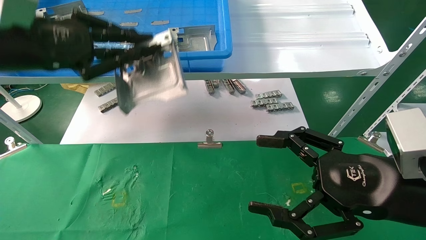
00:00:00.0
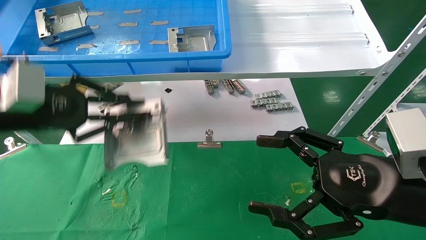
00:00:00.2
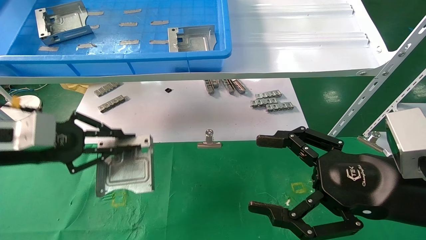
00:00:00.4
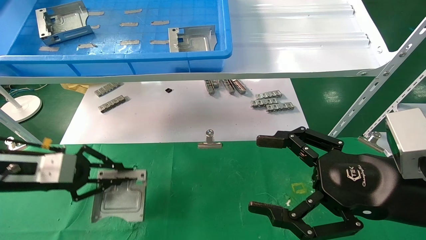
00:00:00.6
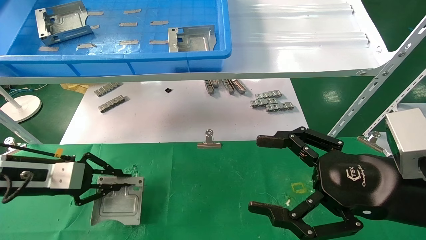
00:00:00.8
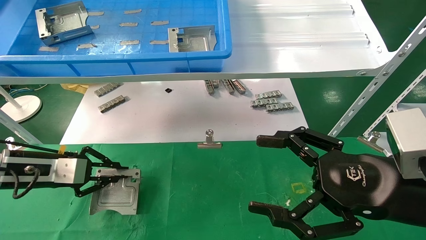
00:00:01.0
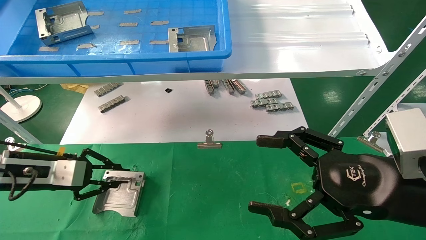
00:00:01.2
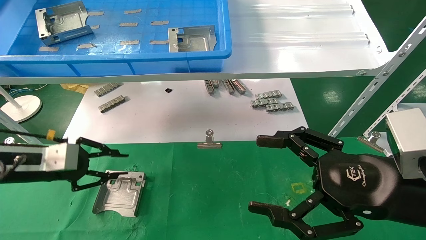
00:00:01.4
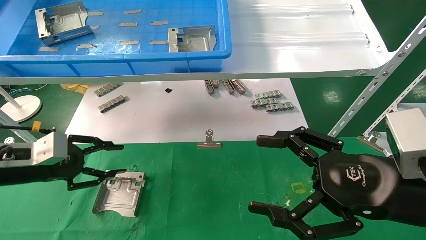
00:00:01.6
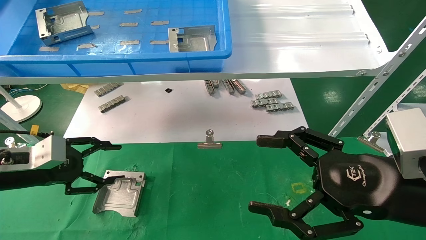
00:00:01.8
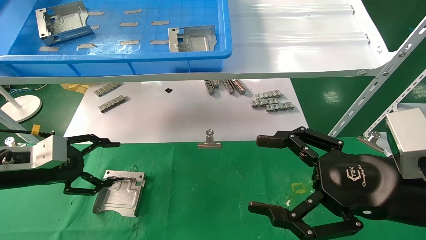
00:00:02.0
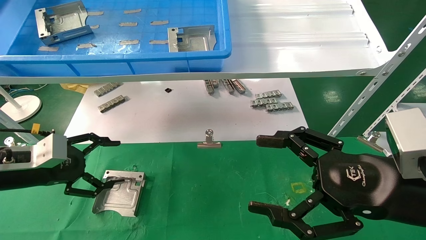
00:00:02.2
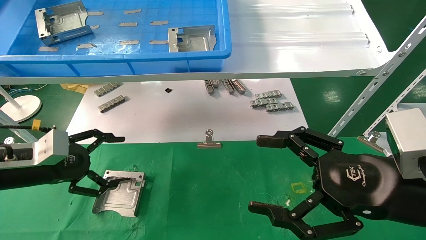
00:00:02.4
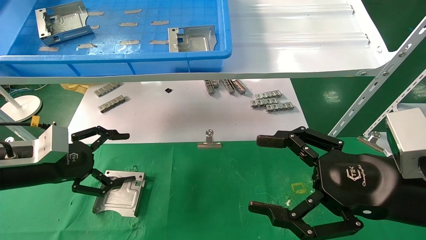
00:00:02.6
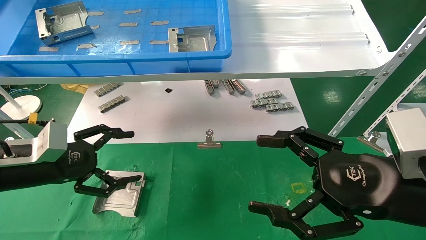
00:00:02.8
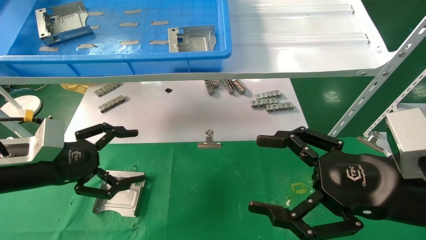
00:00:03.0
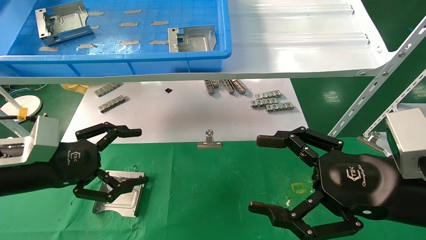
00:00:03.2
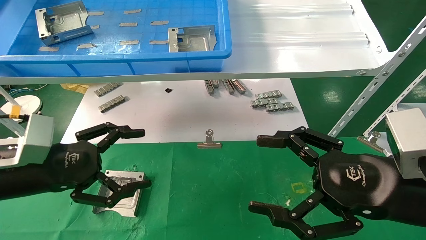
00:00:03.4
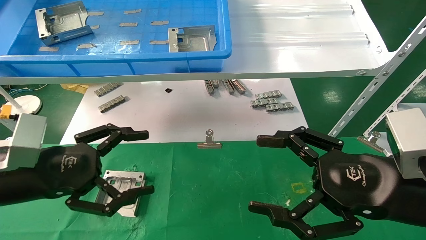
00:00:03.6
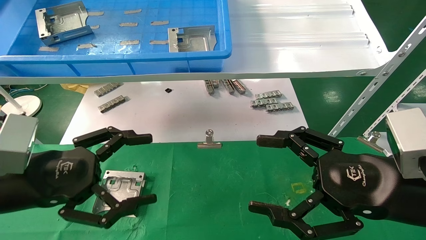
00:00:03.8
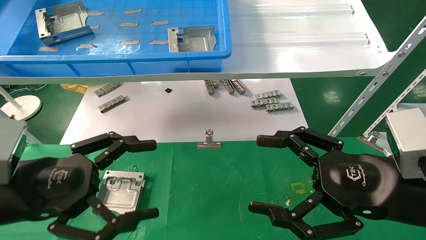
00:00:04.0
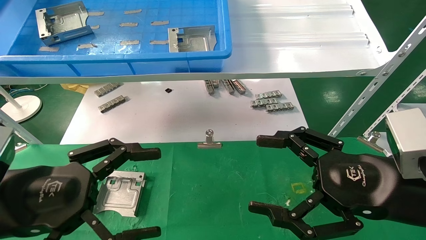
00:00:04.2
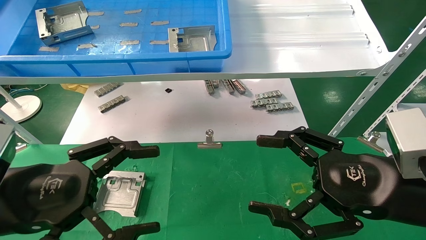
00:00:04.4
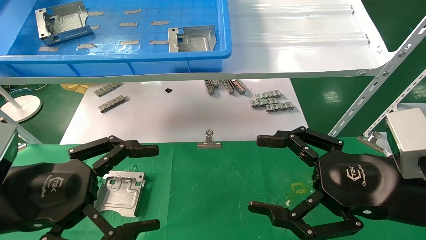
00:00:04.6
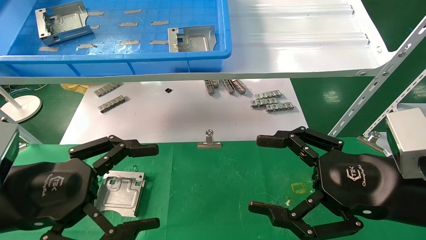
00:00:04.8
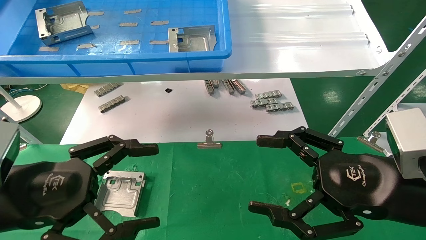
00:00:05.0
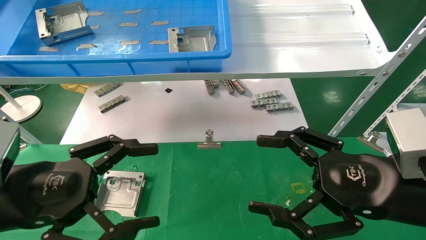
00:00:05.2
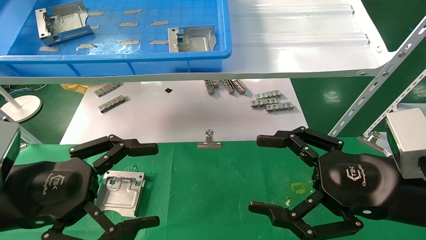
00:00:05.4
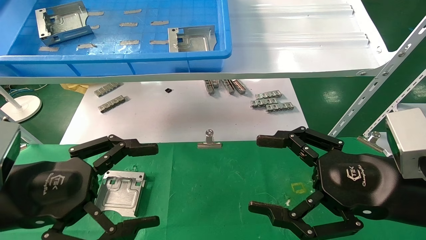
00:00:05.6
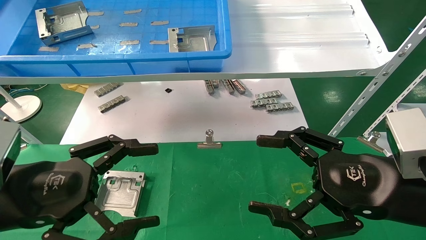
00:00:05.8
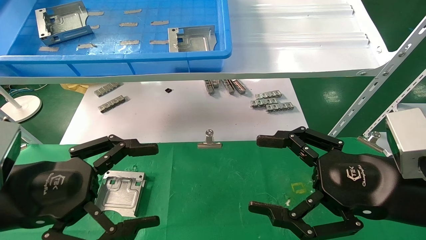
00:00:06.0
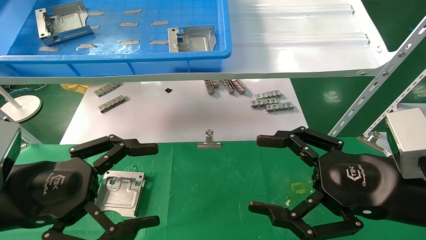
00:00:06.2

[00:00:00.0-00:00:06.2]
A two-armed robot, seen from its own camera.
Task of the whole recording: use the mechanical arm to pick up the parts and place them on the table.
Step, 00:00:00.0 to 00:00:02.0: Place the hard drive bracket into the box.
00:00:00.0 to 00:00:01.6: The left gripper heads downward, covering roughly 20 cm.
00:00:01.6 to 00:00:03.2: The left gripper is displaced to the right and backward by some 10 cm, and opens.
00:00:03.2 to 00:00:04.6: The left gripper heads backward, covering roughly 10 cm.
00:00:04.6 to 00:00:06.2: Neither gripper changes place.

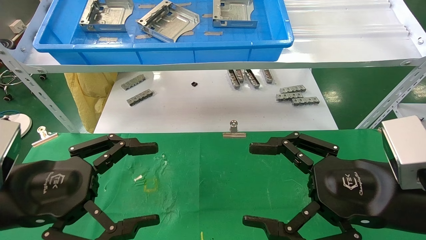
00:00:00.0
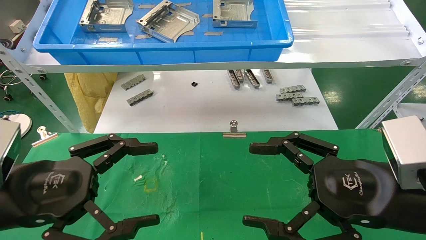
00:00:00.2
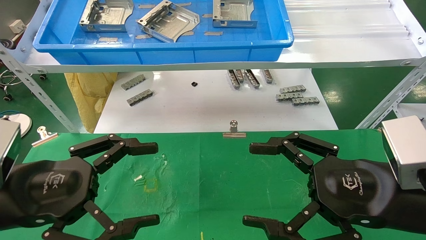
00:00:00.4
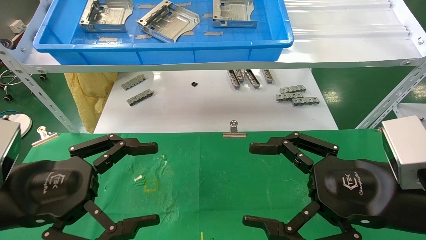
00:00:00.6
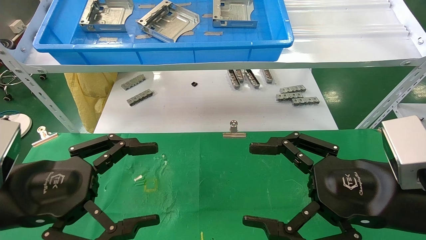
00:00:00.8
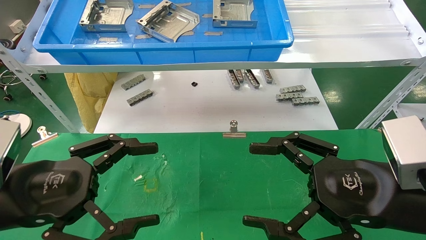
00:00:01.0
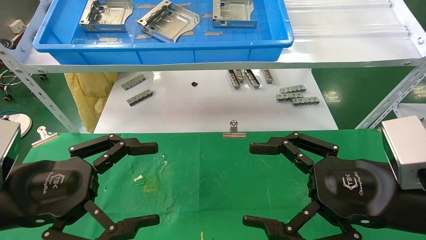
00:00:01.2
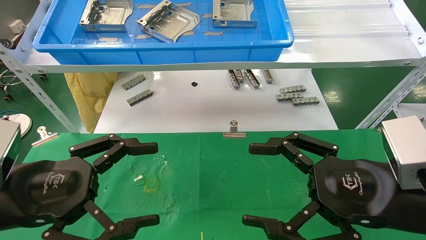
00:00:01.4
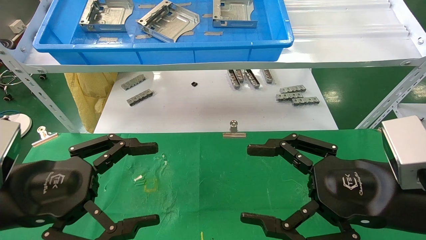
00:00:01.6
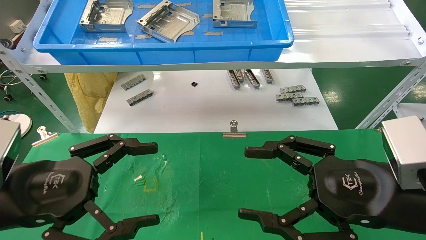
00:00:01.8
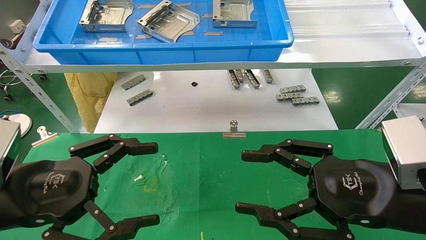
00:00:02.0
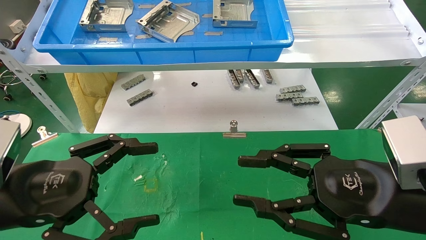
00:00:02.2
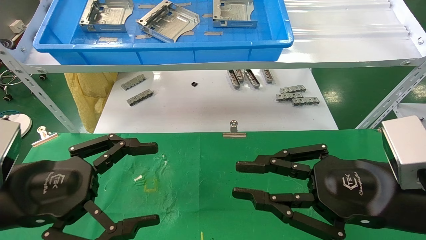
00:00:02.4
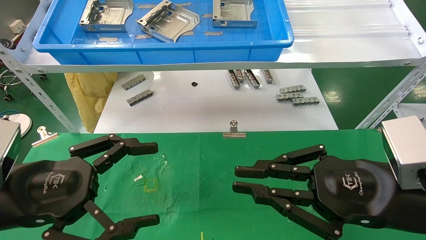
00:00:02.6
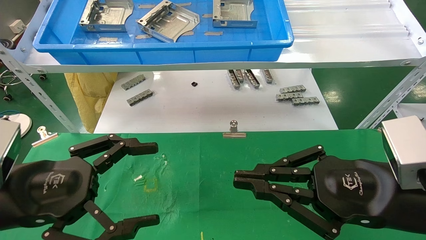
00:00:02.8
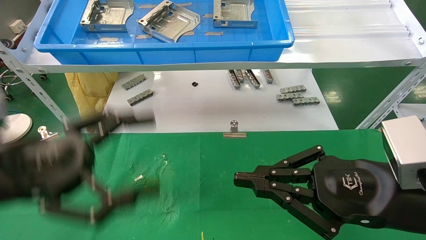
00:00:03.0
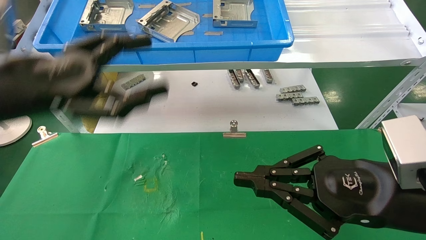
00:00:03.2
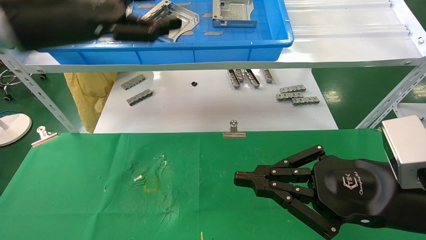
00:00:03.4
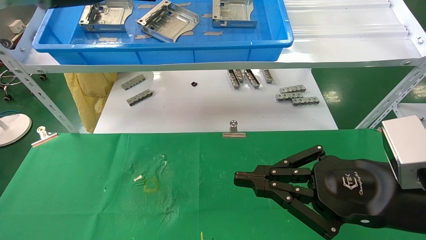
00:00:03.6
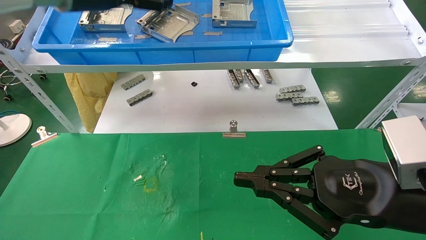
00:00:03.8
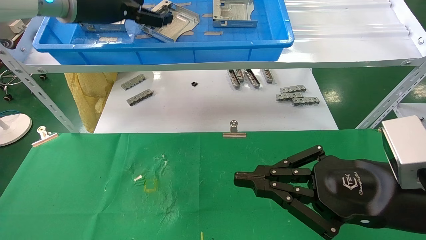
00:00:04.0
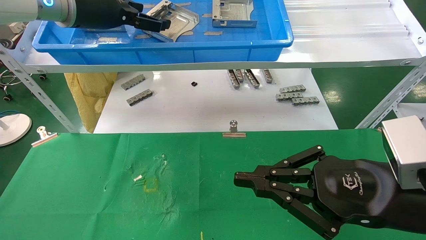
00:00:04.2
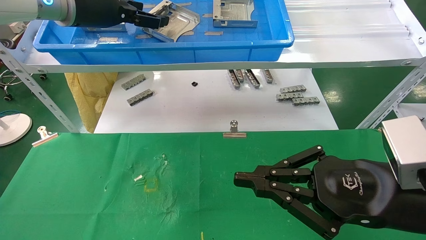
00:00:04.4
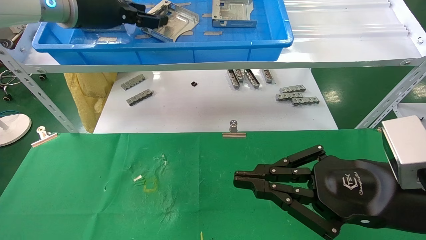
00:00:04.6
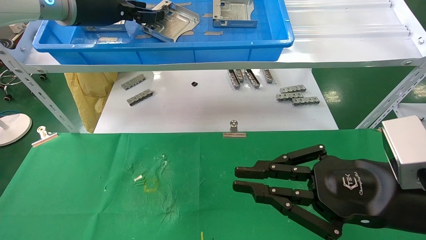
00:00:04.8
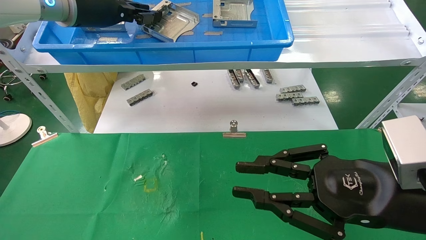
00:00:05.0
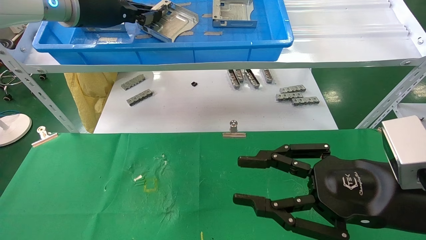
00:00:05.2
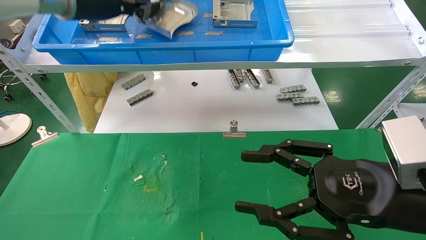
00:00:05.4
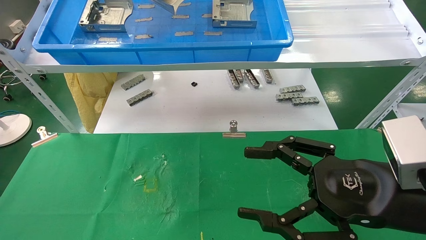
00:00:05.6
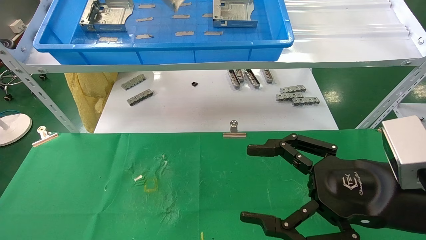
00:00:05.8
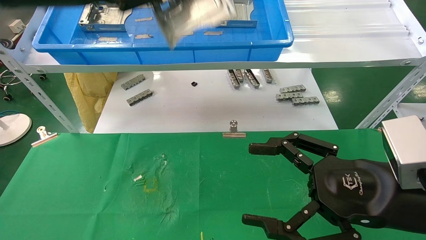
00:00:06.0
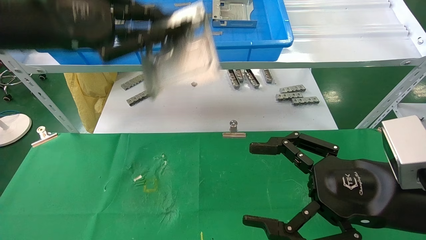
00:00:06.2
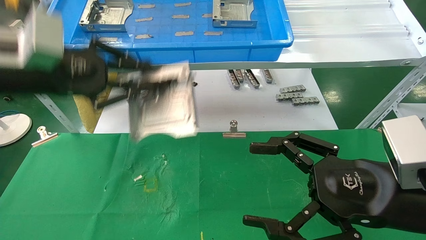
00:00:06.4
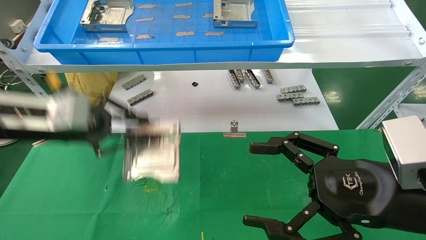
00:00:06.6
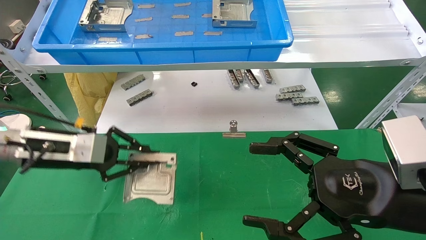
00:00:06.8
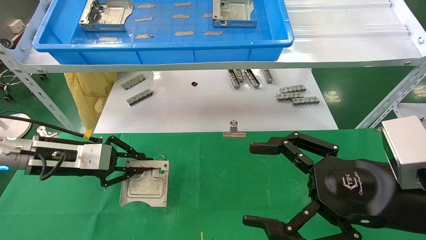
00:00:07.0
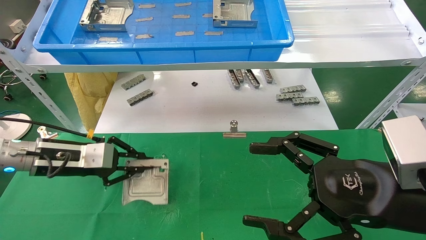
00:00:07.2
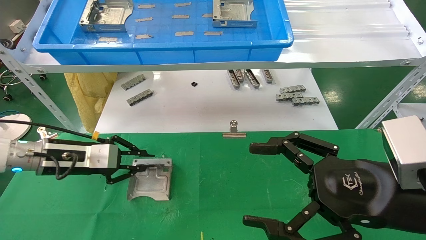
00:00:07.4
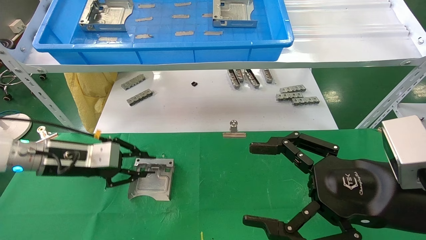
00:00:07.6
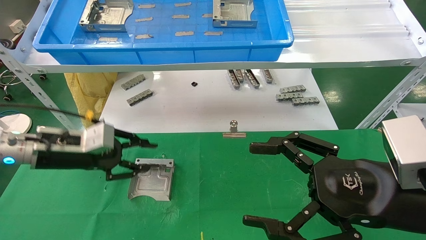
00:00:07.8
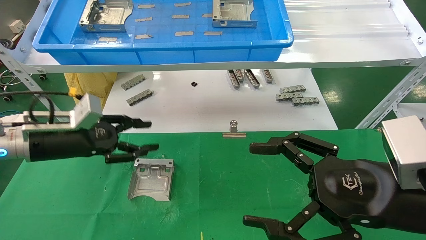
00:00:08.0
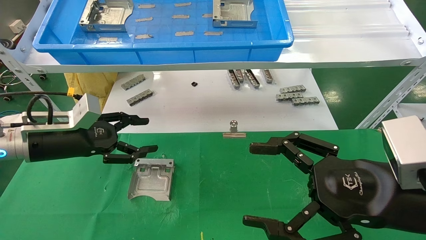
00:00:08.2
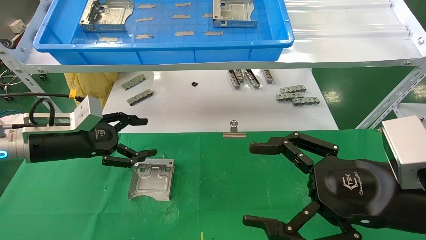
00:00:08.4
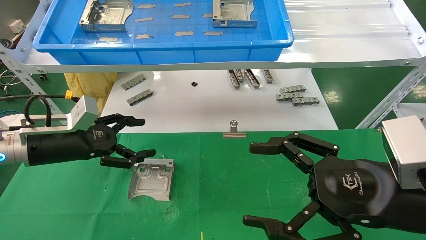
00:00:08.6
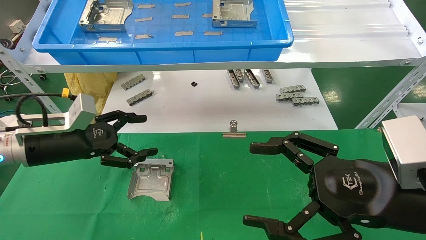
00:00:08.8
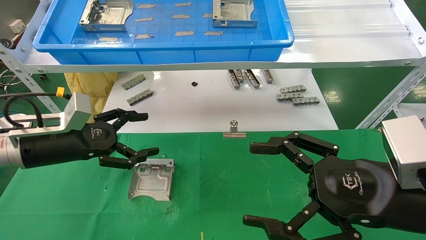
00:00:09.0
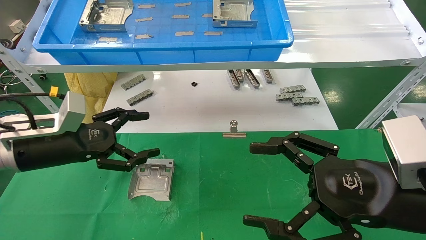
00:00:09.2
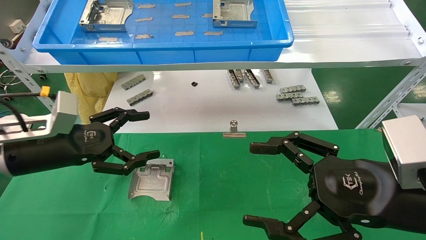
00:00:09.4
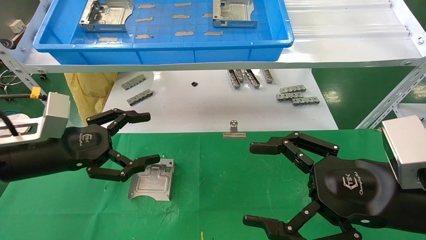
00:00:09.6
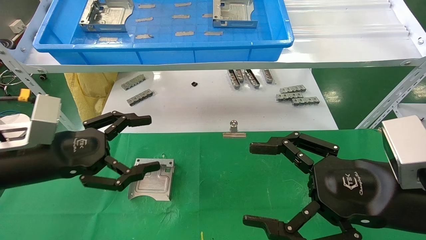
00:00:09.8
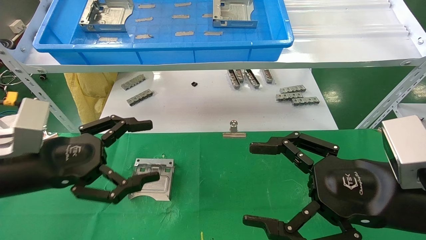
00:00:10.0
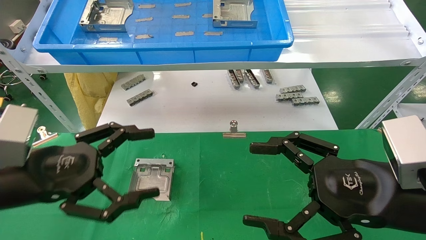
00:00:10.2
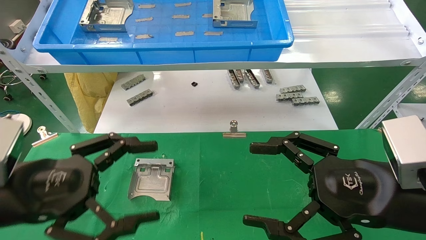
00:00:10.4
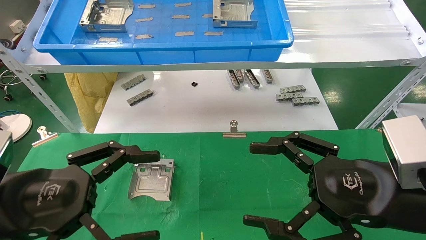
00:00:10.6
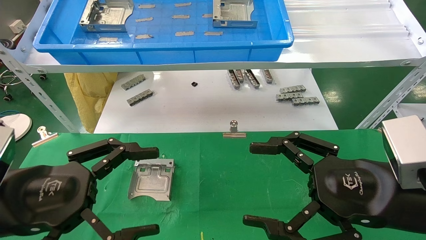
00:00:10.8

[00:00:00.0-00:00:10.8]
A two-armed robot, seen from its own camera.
Task of the whole recording: use the mechanical arm to pick up the parts and place them on the table.
Step, 00:00:03.2 to 00:00:05.2: Pick up the hard drive bracket from the feeding area.
Step, 00:00:05.4 to 00:00:08.0: Place the hard drive bracket into the box.
00:00:00.0 to 00:00:01.6: Neither gripper changes place.
00:00:01.6 to 00:00:03.0: The right gripper closes its fingers, while the left gripper is displaced upward by about 5 cm.
00:00:03.0 to 00:00:04.6: The left gripper moves forward and upward, some 25 cm.
00:00:04.6 to 00:00:06.2: The right gripper opens up. The left gripper heads backward, covering about 10 cm, and closes its fingers.
00:00:06.2 to 00:00:07.8: The left gripper goes about 20 cm downward.
00:00:07.8 to 00:00:09.2: The left gripper opens up.
00:00:09.2 to 00:00:10.8: The left gripper is displaced backward by about 15 cm.
